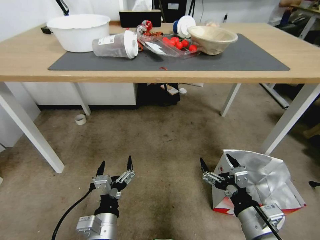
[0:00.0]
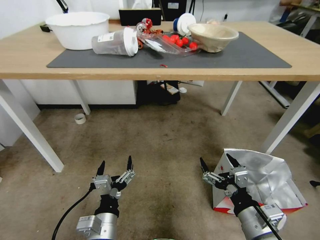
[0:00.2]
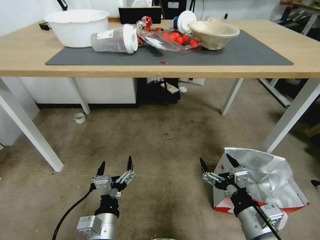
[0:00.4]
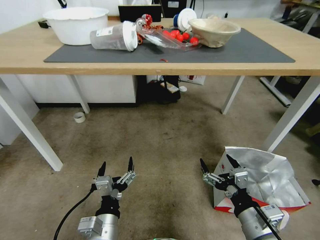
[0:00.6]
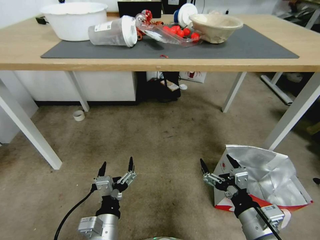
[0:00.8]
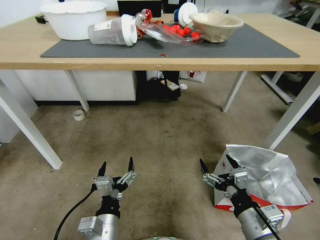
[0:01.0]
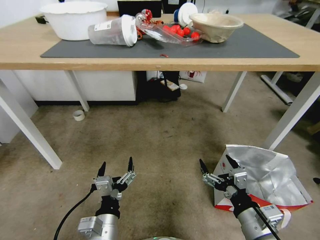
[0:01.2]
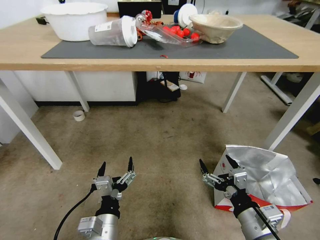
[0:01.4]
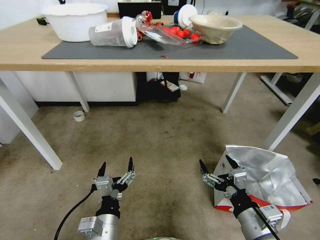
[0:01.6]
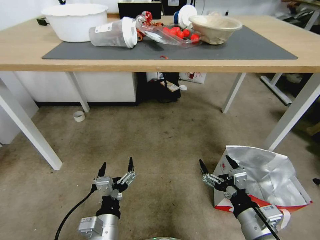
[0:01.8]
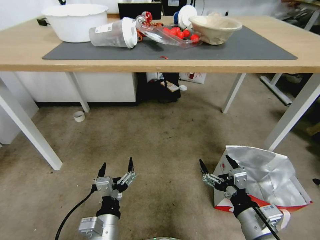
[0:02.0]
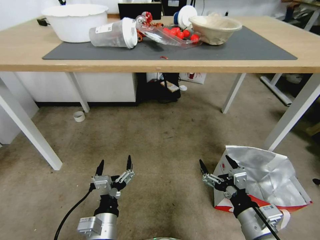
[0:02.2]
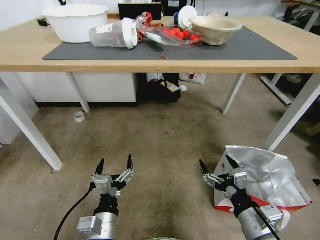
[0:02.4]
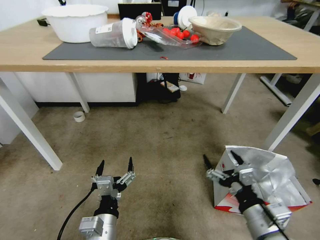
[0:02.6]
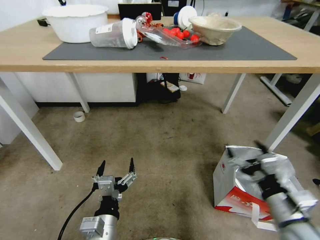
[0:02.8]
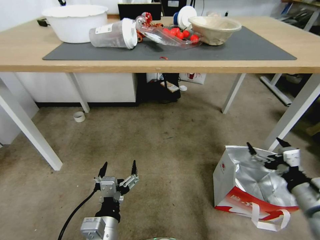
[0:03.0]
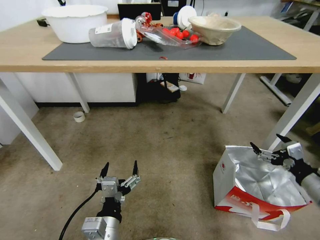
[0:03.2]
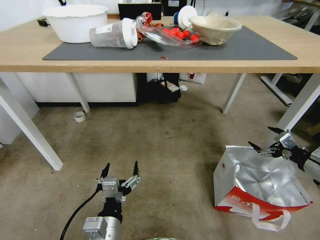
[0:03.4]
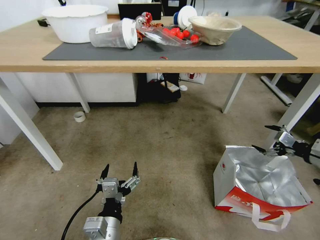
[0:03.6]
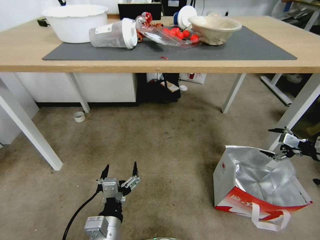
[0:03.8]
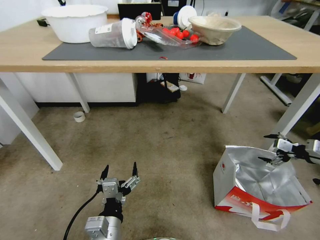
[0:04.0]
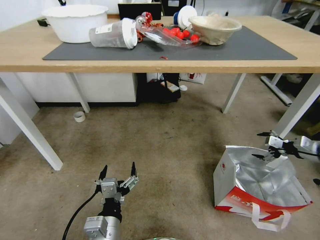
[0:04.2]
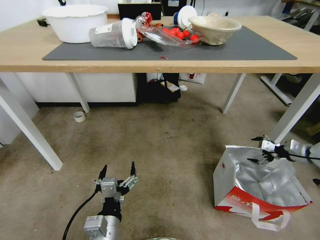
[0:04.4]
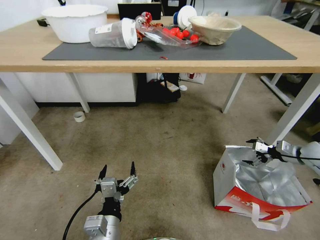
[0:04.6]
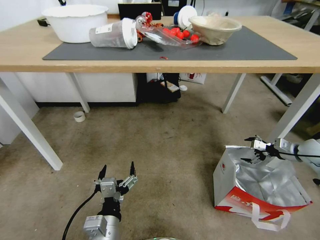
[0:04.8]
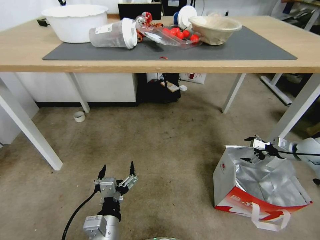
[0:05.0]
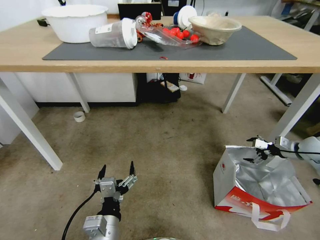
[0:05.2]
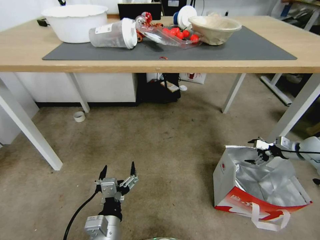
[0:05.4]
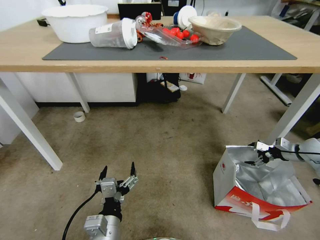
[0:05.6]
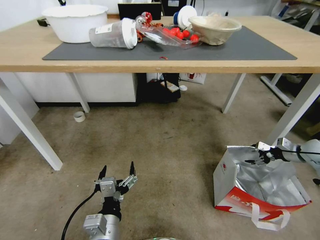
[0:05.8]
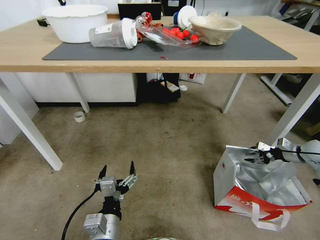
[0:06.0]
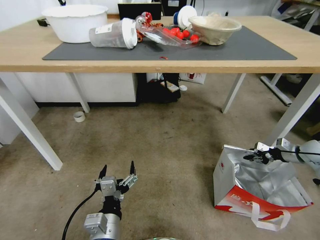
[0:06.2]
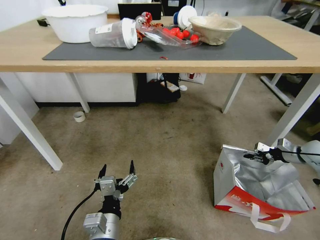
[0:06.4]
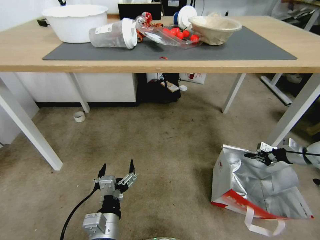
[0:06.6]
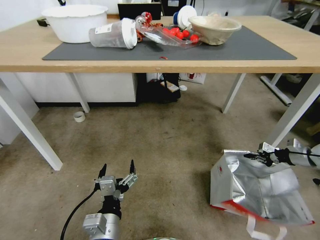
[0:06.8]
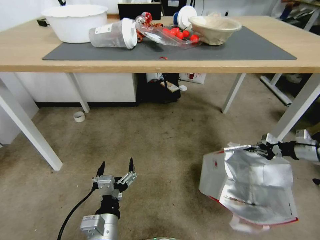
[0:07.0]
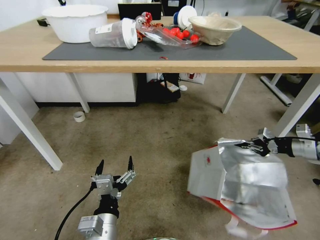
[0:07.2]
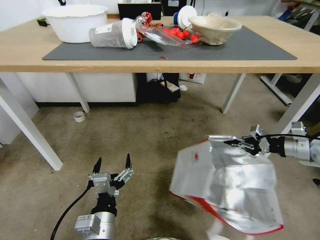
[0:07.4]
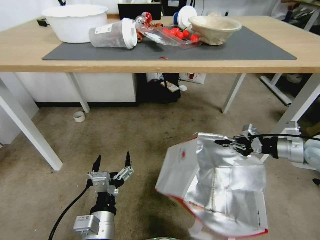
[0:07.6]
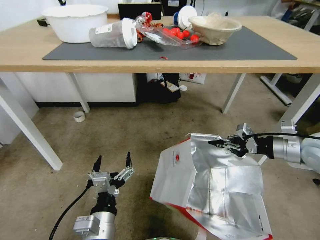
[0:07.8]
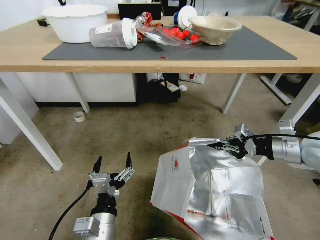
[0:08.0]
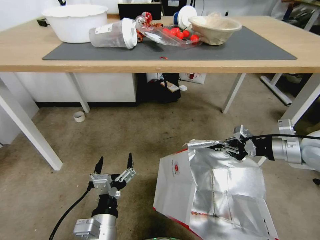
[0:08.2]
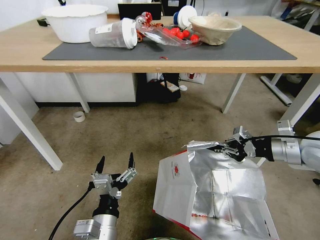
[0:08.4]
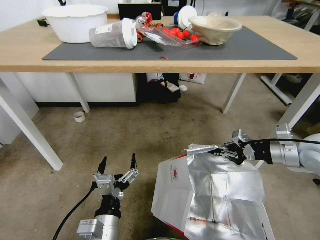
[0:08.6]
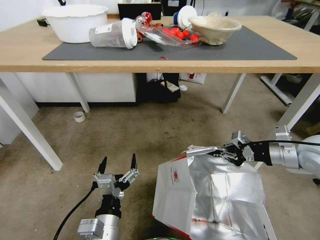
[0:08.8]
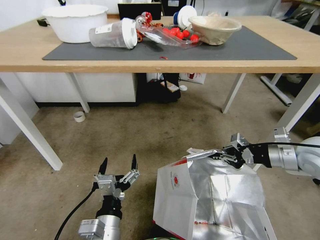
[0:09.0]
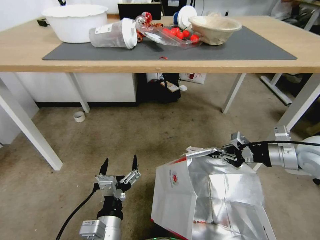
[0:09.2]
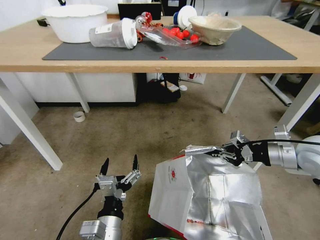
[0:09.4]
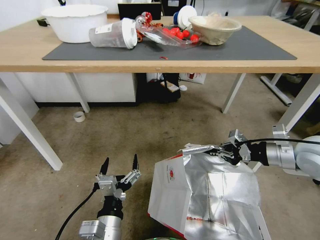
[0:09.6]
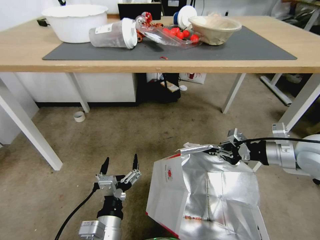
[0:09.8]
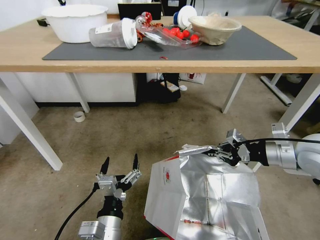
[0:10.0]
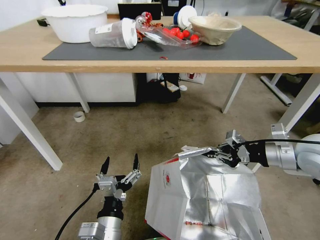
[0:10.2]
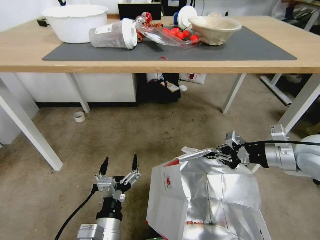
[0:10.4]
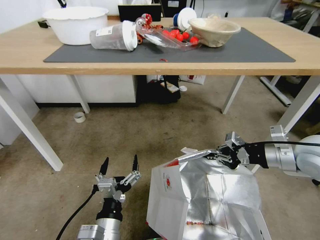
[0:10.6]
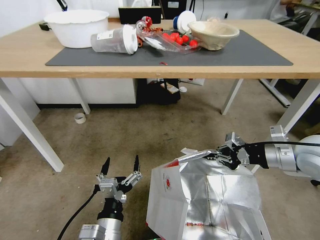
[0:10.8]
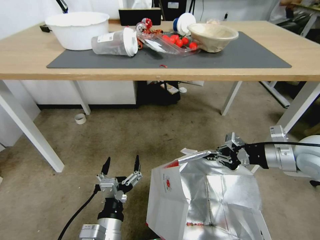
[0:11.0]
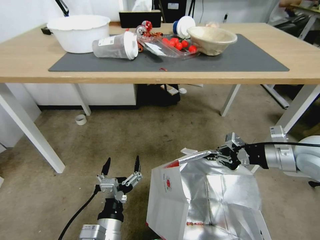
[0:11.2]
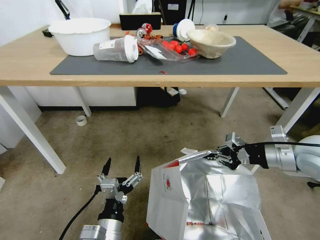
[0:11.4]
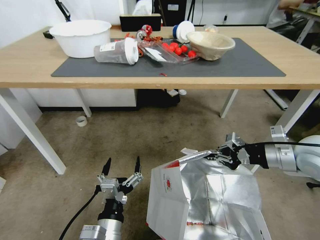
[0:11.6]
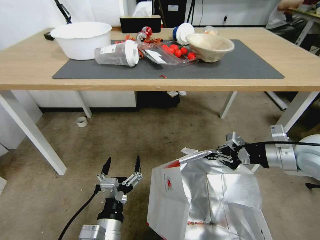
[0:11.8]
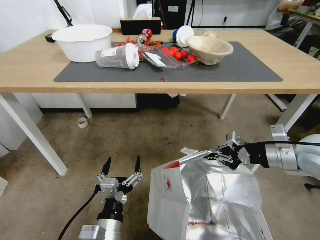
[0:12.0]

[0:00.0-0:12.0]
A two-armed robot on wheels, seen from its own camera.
Task of the whole recording: Pick up the food delivery bag from the floor and place it on the table.
0:01.6 to 0:03.0: The right gripper shifts roughly 15 cm to the right.
0:03.0 to 0:04.4: The right gripper travels forward and to the right by about 25 cm.
0:04.4 to 0:06.0: The right gripper ends up approximately 5 cm from where it was, and closes.
0:06.0 to 0:07.6: The right gripper travels to the left, upward and backward by about 25 cm, and closes.
0:07.6 to 0:09.0: The grippers make only small movements.
0:09.0 to 0:10.4: The grippers make only small movements.

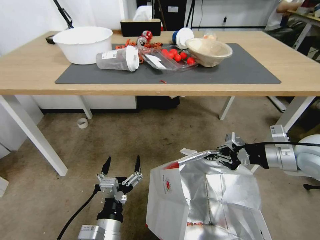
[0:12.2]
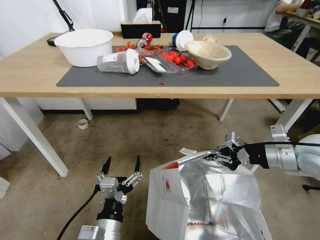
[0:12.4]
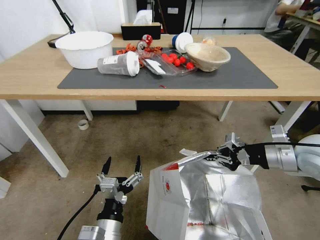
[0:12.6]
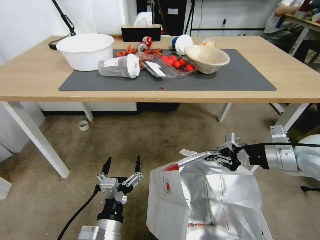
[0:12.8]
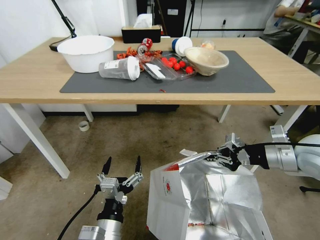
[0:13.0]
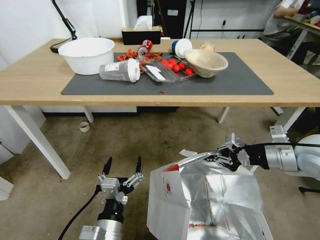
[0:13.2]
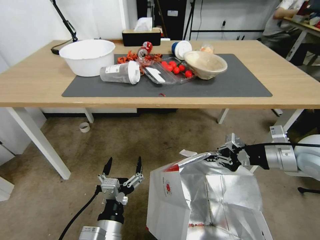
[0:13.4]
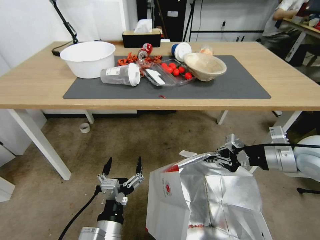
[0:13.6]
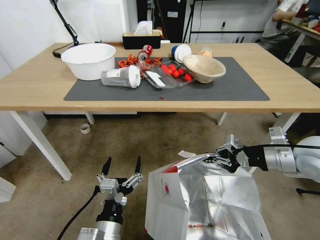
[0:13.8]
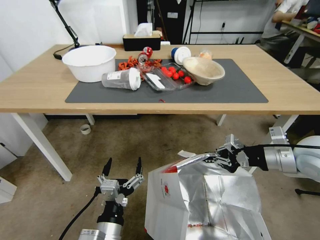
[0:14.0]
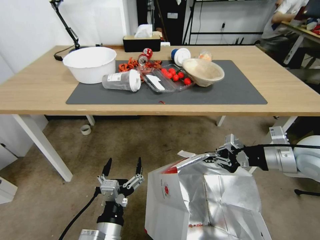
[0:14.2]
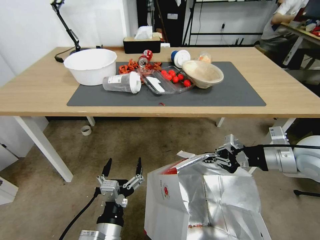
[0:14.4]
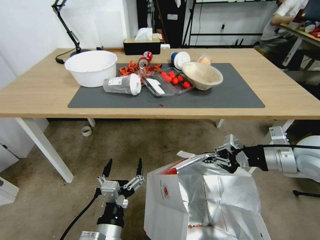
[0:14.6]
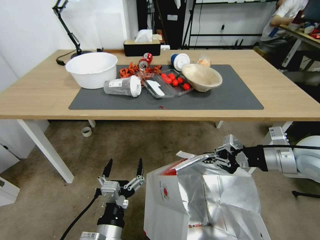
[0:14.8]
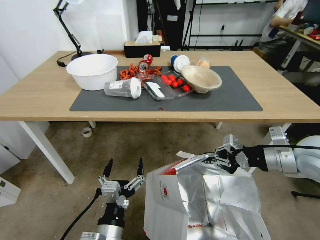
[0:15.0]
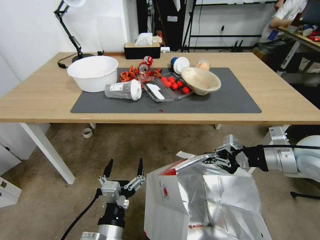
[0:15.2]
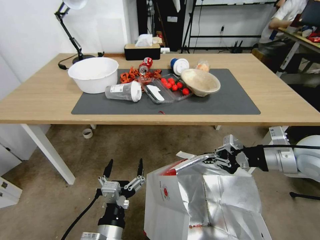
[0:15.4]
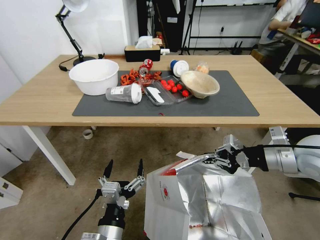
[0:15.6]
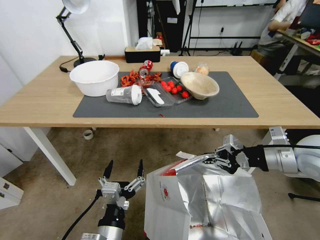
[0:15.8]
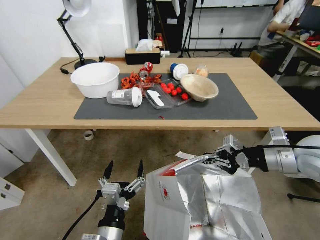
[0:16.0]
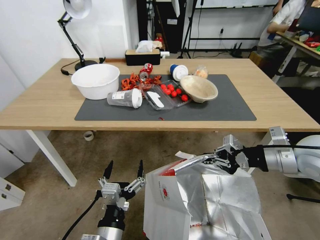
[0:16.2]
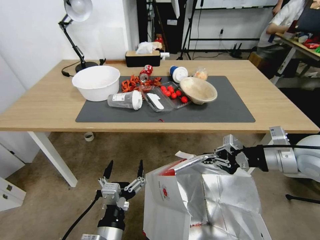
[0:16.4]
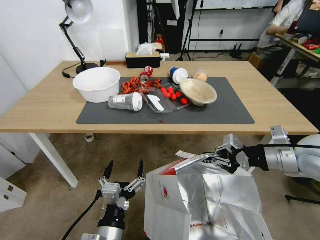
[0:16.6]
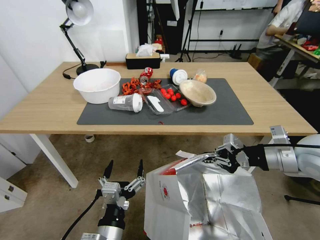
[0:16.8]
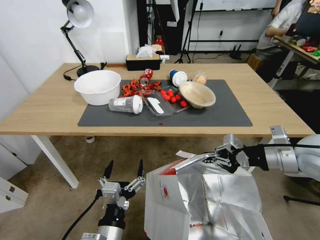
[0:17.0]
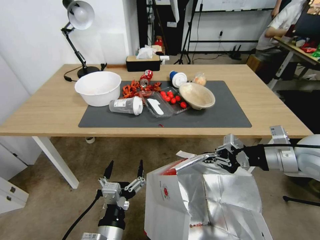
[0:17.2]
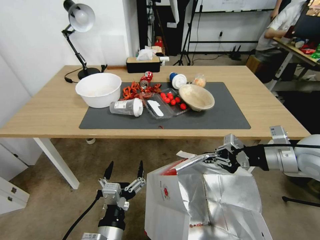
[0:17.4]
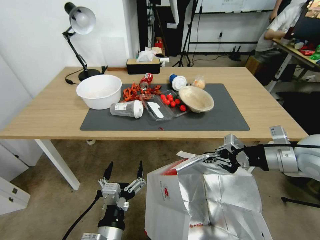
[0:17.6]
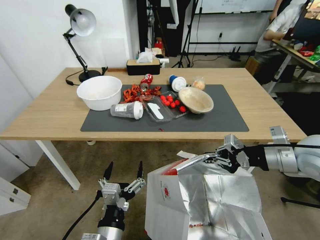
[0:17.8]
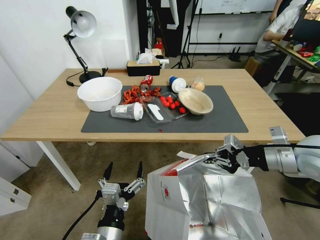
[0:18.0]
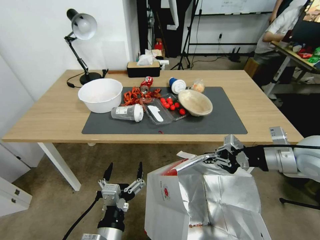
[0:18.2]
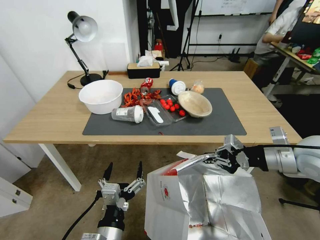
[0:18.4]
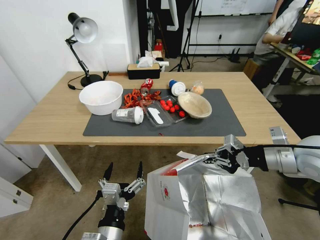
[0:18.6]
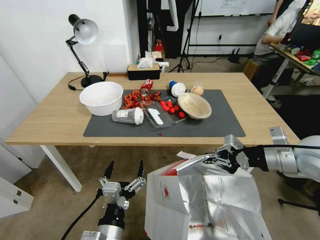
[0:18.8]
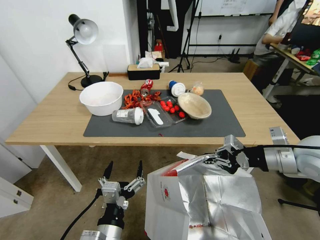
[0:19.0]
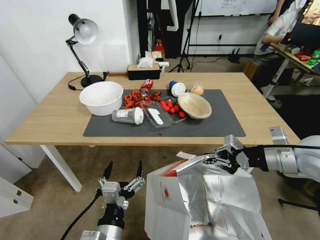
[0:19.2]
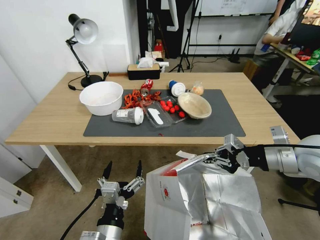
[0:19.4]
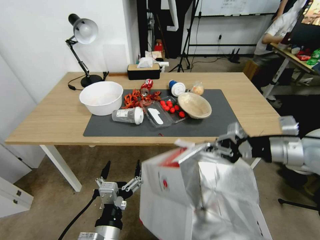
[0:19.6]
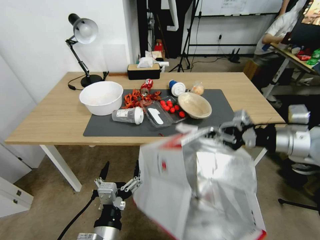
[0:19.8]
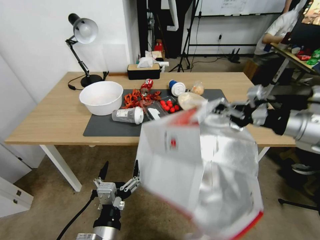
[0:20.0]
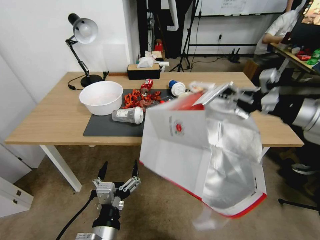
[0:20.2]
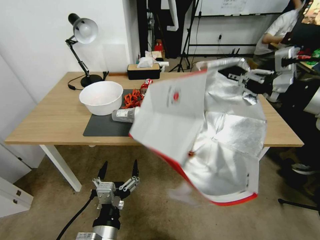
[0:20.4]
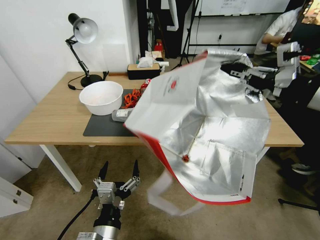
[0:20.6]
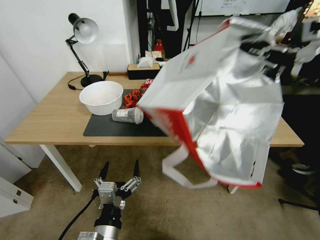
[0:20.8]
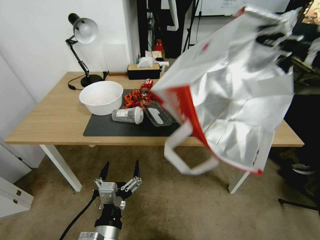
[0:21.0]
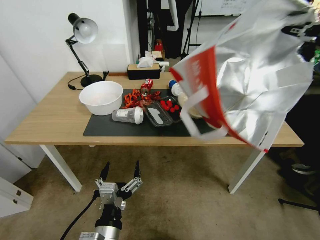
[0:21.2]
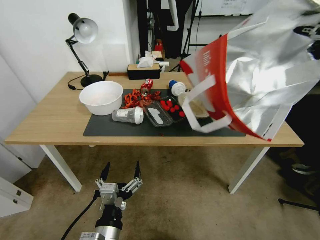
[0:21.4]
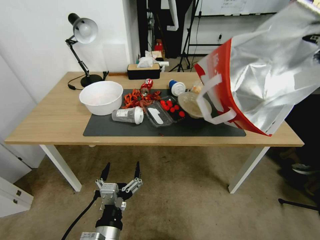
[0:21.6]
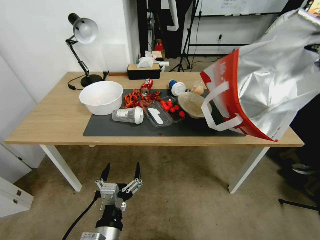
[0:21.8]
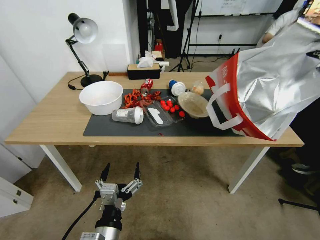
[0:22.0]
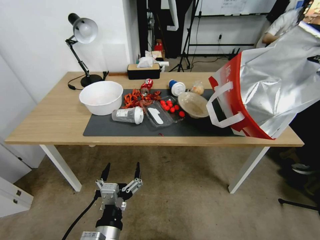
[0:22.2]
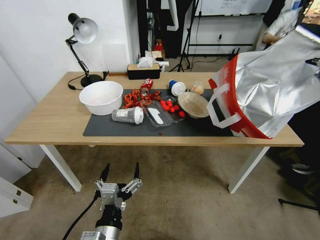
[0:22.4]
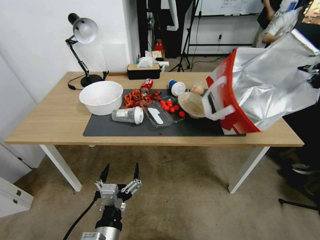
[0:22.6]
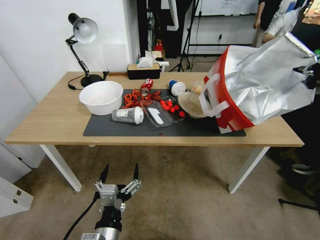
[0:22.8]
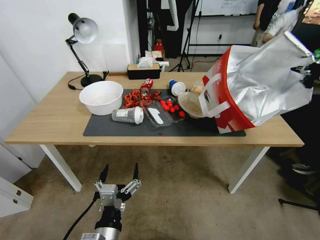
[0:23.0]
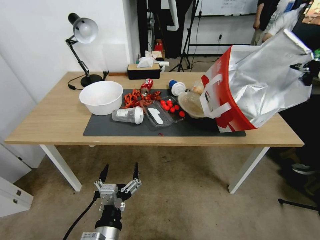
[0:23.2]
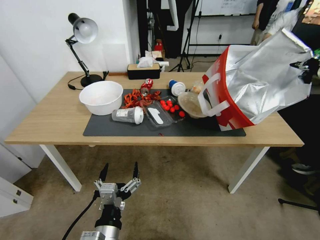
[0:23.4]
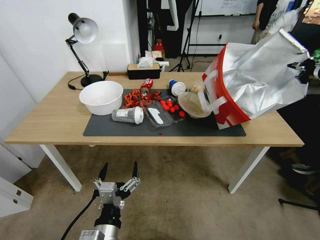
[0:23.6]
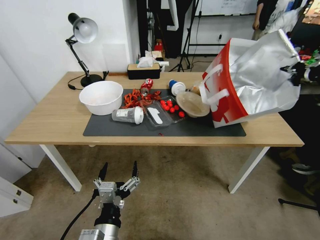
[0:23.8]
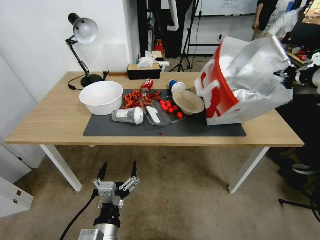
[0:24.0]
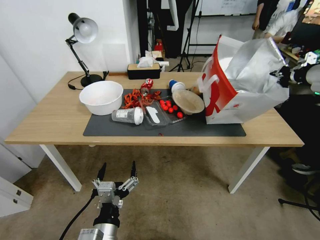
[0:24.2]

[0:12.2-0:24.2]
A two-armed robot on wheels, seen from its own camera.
Task of the whole recording: Pick up the food delivery bag from the floor and place it on the table.
0:19.8 to 0:21.2: The right gripper travels upward by roughly 15 cm.
0:21.2 to 0:22.6: The right gripper shifts about 15 cm to the right, downward and forward.
0:22.6 to 0:24.2: The right gripper heads forward, covering about 10 cm.
